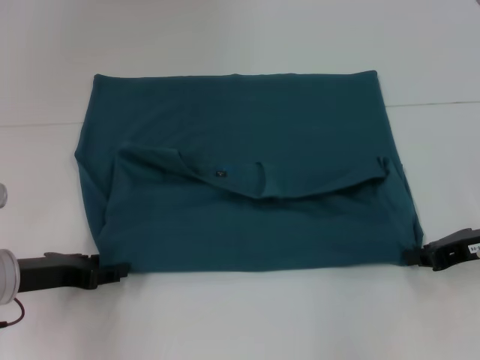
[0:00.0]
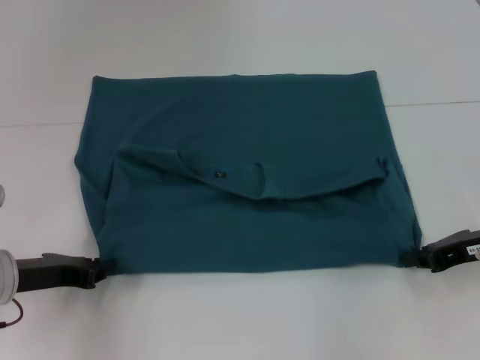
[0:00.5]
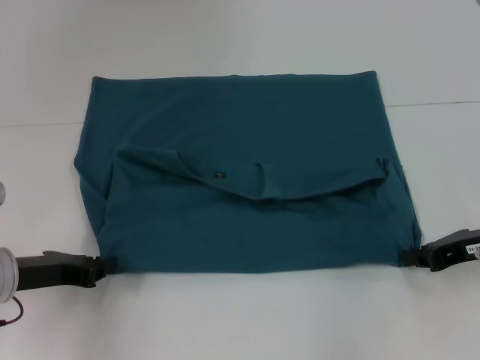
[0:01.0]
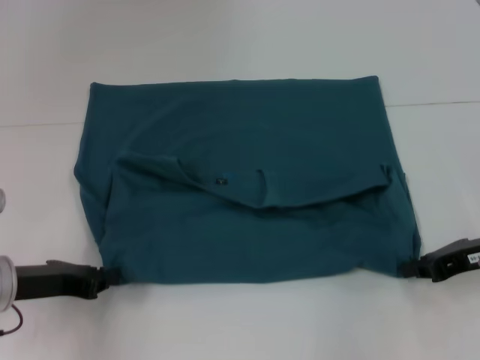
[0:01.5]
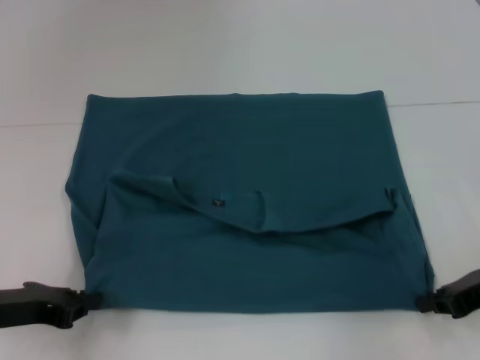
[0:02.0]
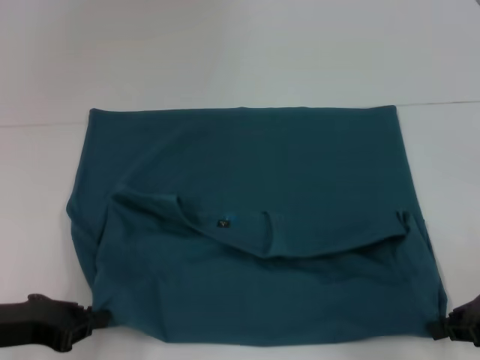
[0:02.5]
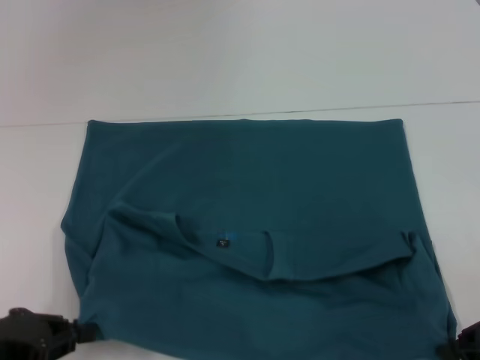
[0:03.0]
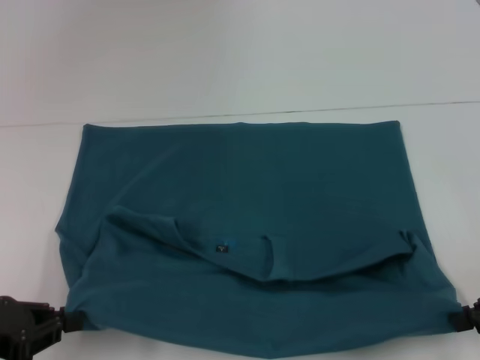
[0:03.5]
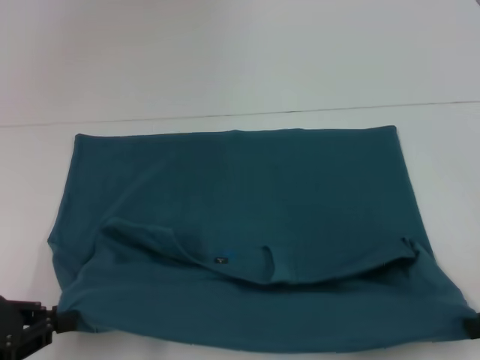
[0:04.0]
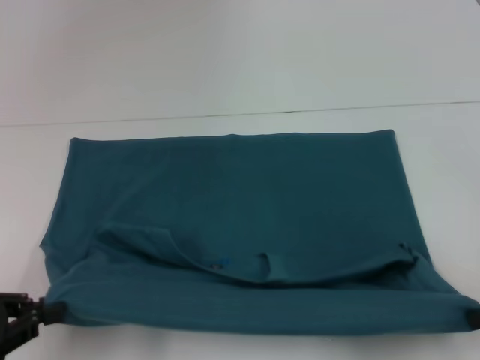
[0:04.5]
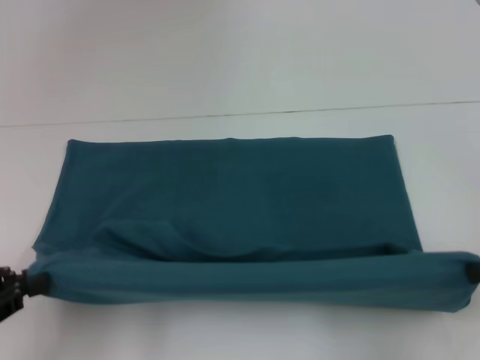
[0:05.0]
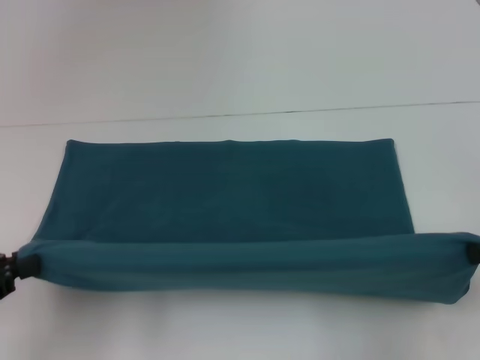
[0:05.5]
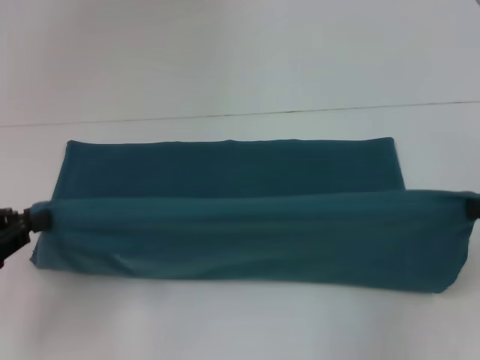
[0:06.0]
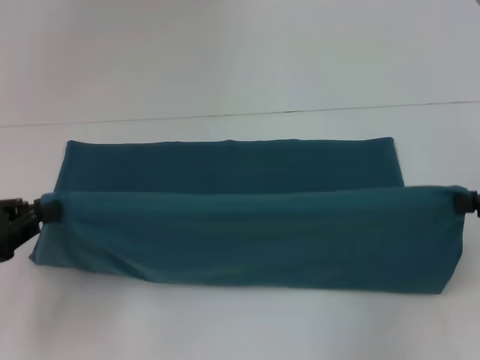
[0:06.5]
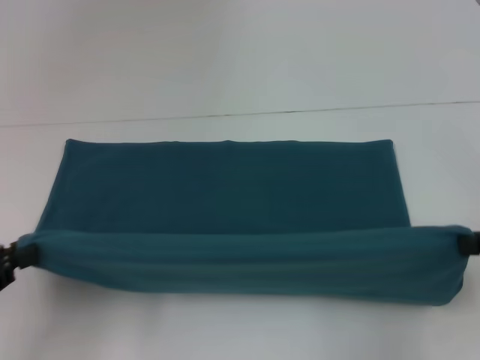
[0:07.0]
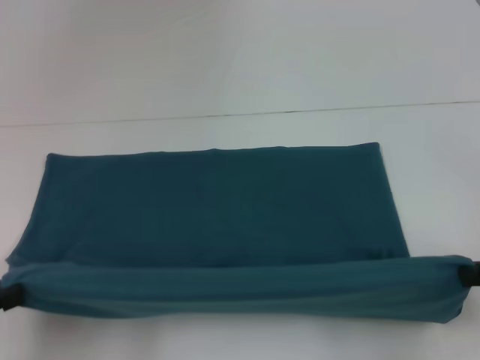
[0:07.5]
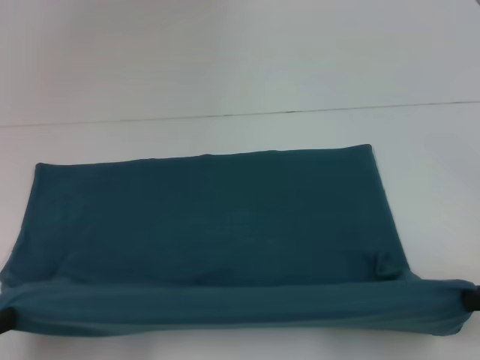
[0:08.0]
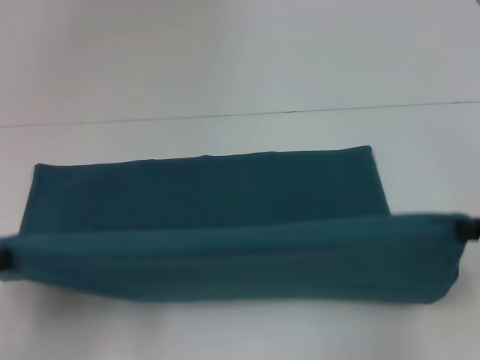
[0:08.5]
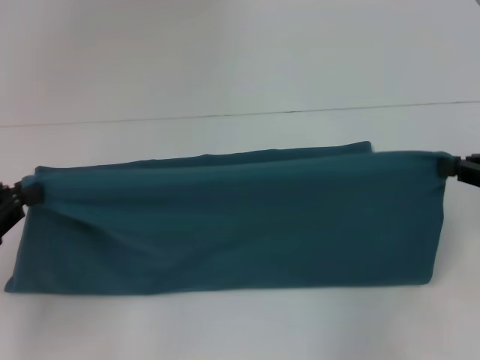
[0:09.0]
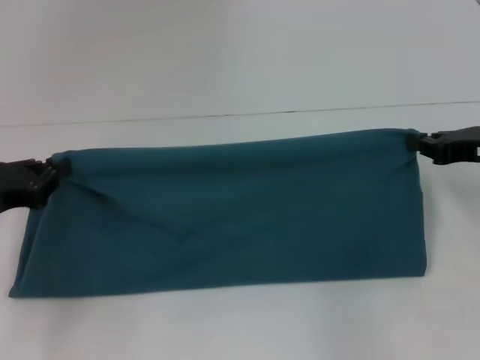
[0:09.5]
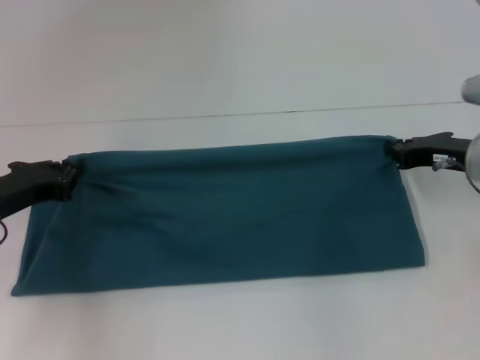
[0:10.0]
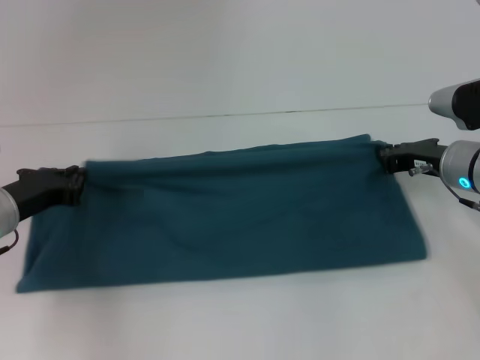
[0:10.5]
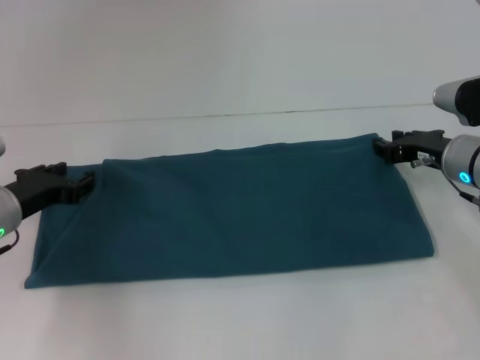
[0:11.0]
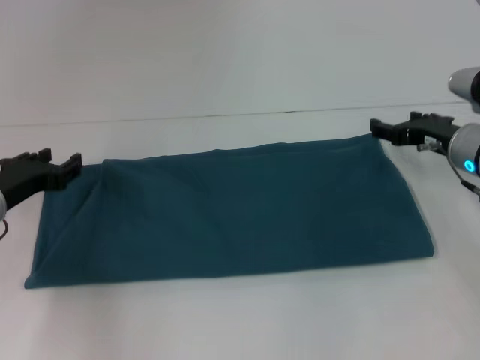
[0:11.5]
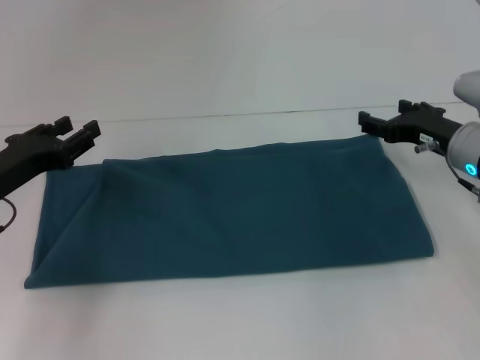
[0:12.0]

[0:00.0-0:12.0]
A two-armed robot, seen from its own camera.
Step, 0:00.0 to 0:02.5: Pull the clothes with your left hand.
Step, 0:00.0 to 0:02.5: Pull the clothes with your right hand.
Step, 0:03.0 to 0:11.0: Fold the clothes to the left.
Step, 0:03.0 to 0:11.0: Fold the clothes to the right.
0:00.0 to 0:02.0: The left gripper closes its fingers.
0:02.0 to 0:04.0: The right gripper moves backward and upward, about 10 cm, while the left gripper moves backward, some 5 cm.
0:06.0 to 0:08.0: The left gripper is displaced backward by roughly 10 cm.
0:08.0 to 0:10.0: The left gripper travels forward and to the right by approximately 20 cm. The right gripper goes approximately 15 cm forward.
0:10.0 to 0:12.0: The left gripper opens. Meanwhile the right gripper opens up.

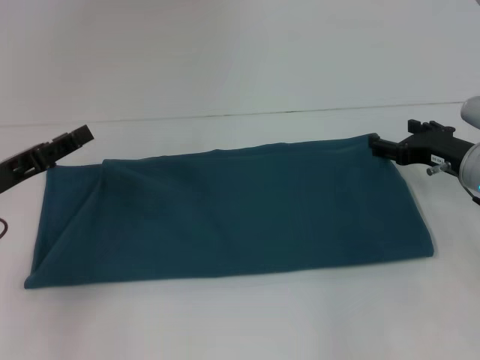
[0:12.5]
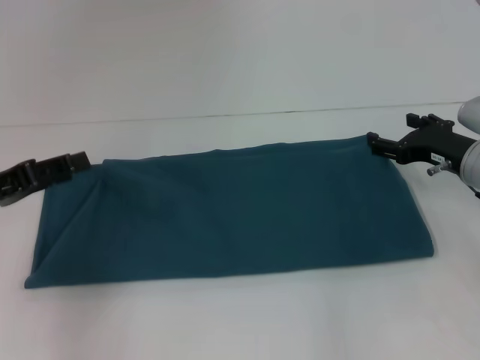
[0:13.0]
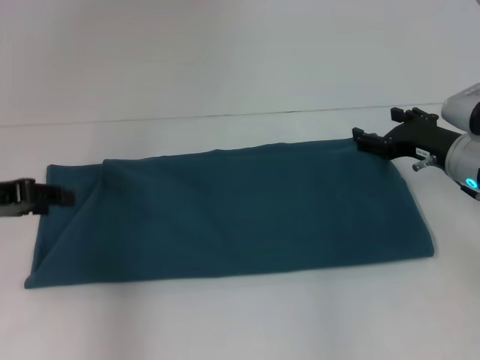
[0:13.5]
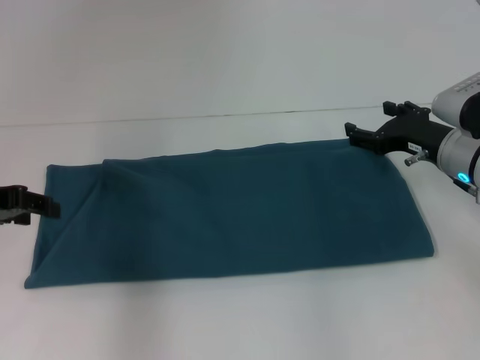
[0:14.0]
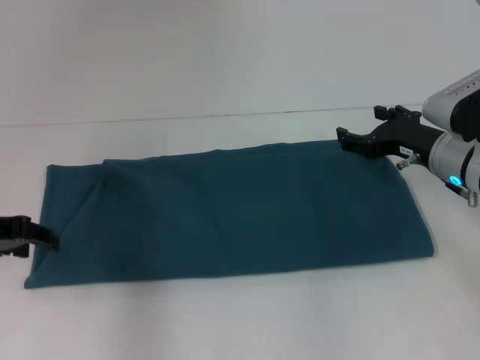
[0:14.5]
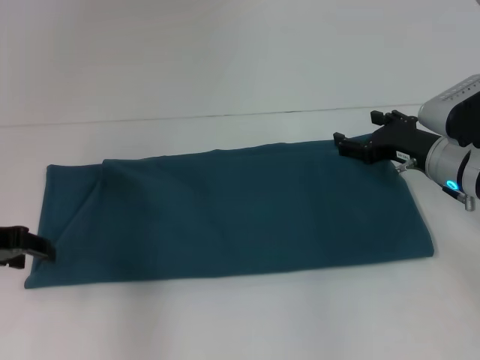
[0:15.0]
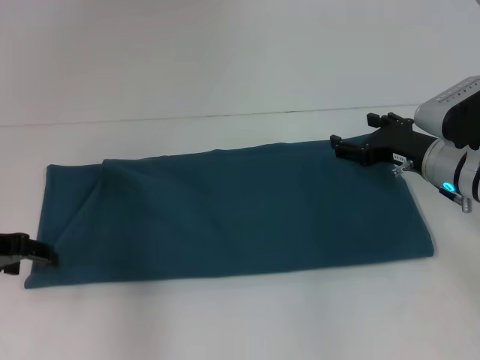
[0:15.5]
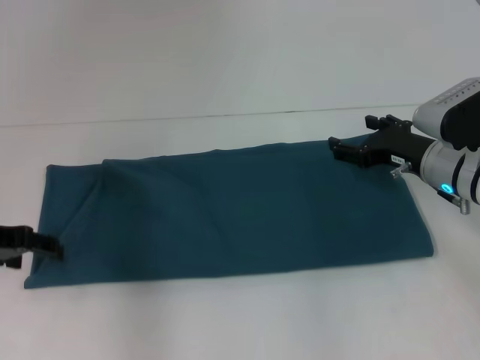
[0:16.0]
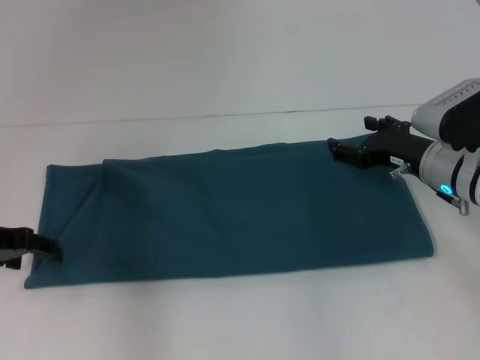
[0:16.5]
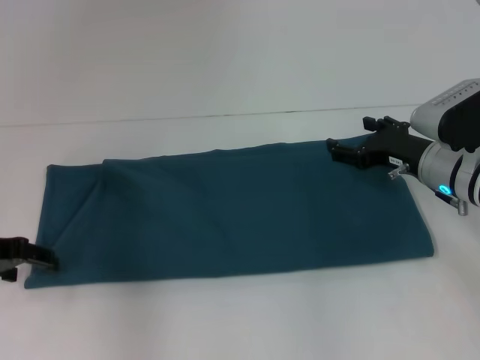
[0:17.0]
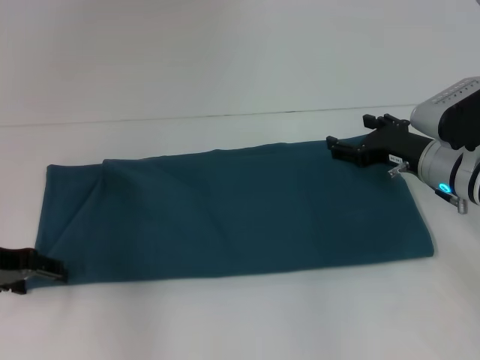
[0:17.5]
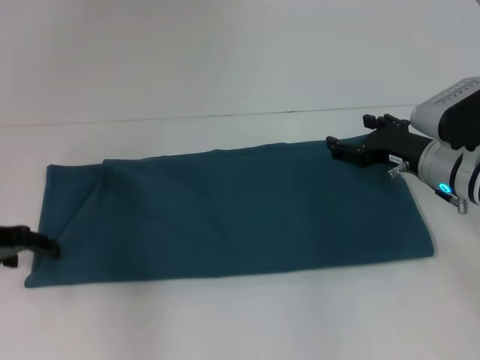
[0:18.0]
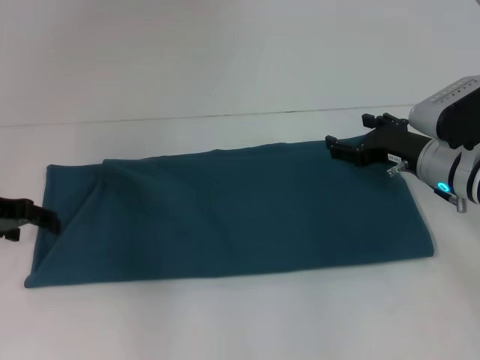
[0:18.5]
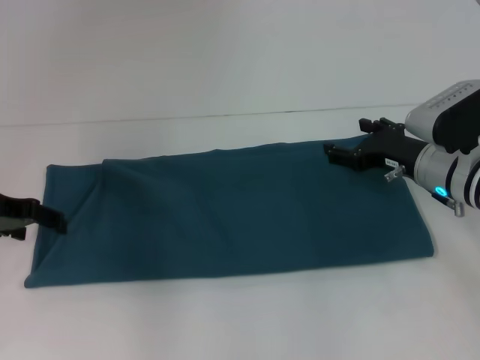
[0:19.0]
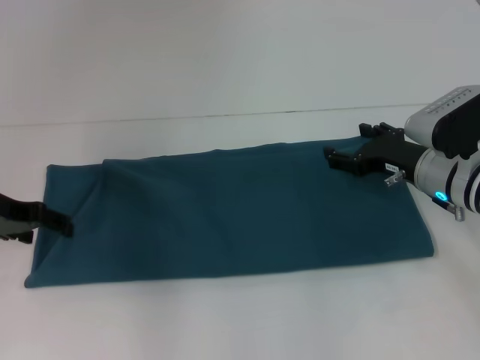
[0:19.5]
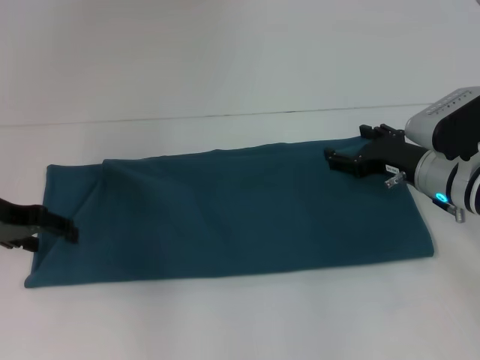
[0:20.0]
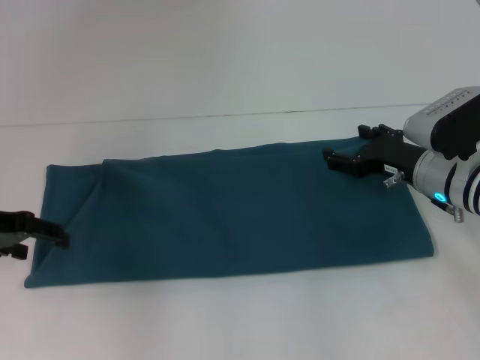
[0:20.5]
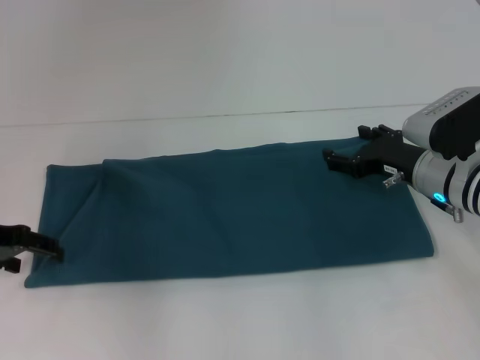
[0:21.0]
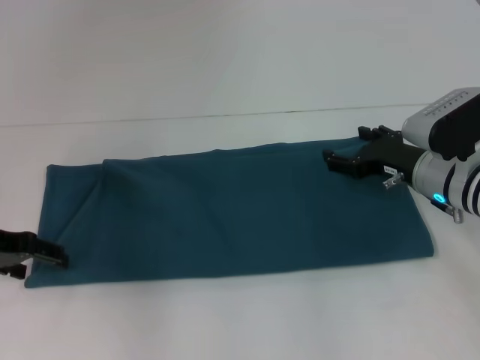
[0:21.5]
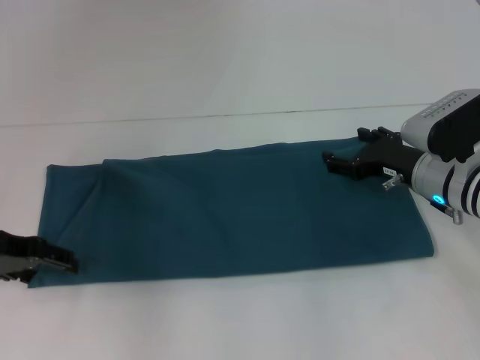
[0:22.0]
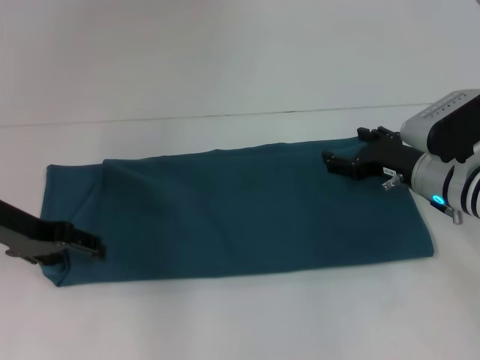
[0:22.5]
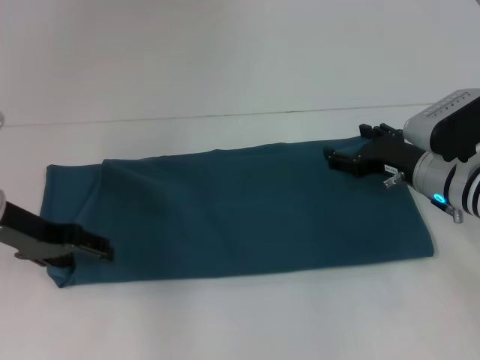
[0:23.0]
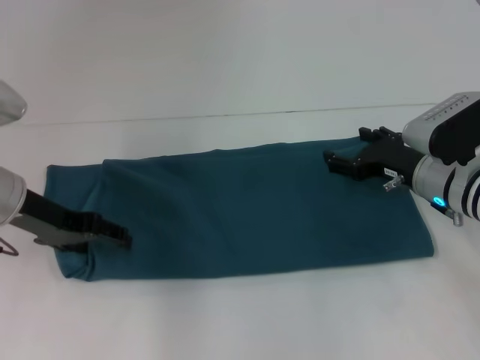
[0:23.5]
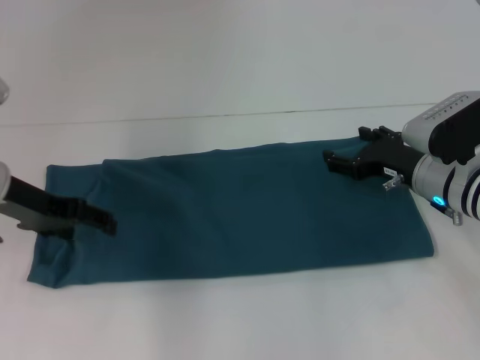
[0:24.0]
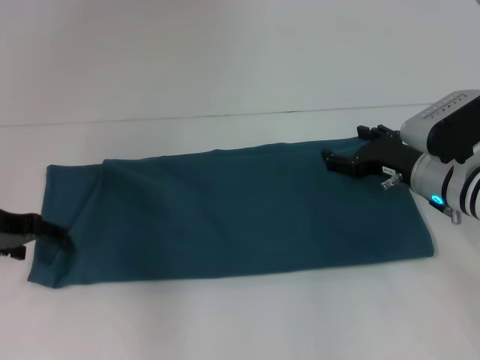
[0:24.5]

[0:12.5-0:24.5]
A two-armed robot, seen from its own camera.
0:14.5 to 0:22.5: The grippers stay close to where they were, moving slightly.
0:22.5 to 0:24.5: There are only small adjustments of the grippers.

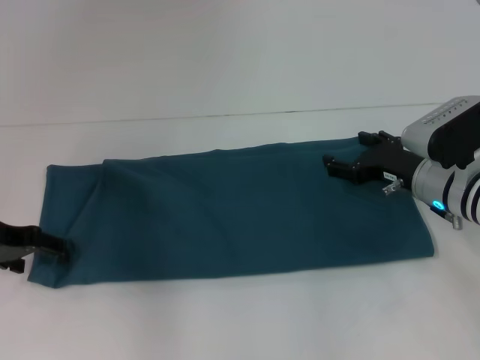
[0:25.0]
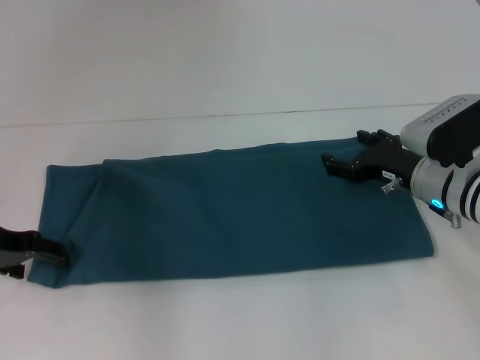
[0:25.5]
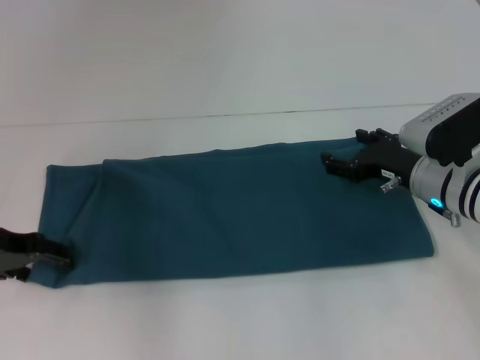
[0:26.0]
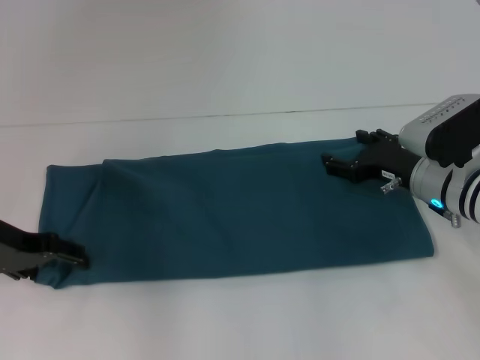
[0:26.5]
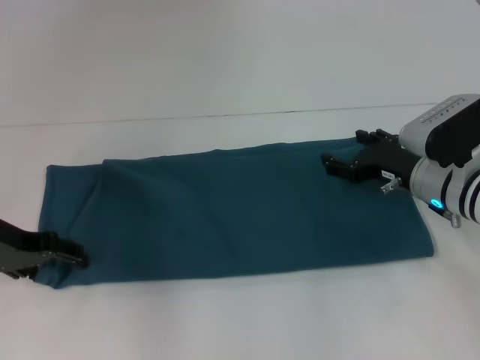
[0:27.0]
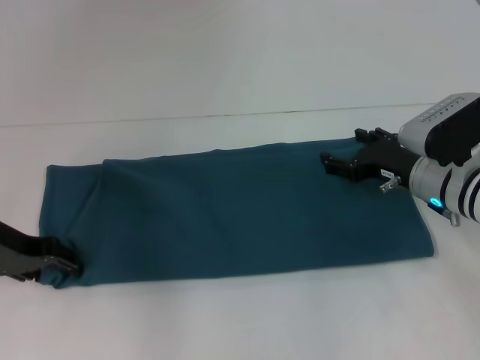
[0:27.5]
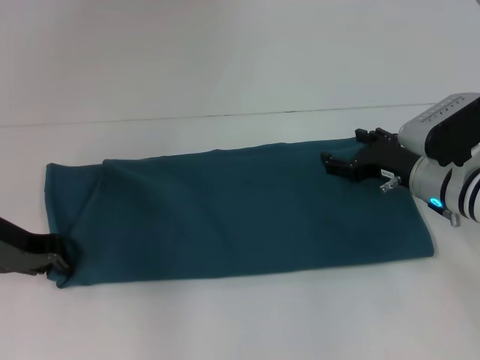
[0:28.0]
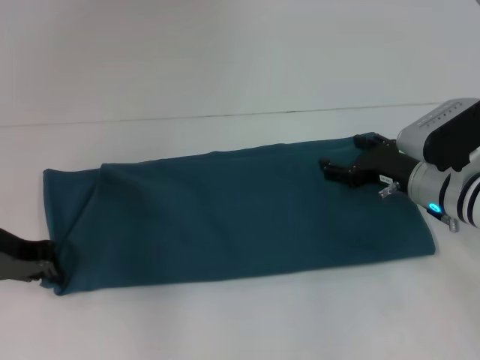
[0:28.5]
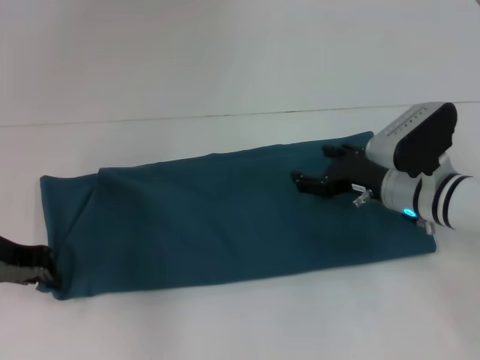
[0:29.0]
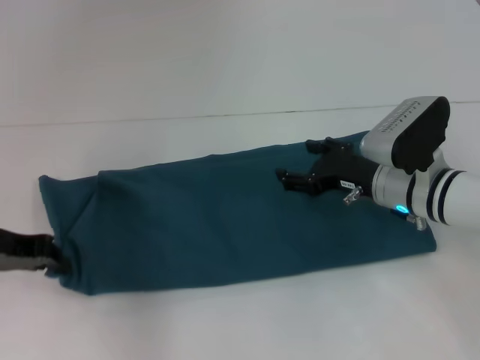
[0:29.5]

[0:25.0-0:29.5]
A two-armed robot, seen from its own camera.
0:25.0 to 0:27.0: The grippers make only small movements.
0:27.0 to 0:29.5: The left gripper closes.
